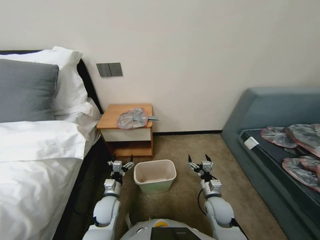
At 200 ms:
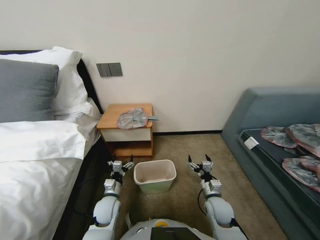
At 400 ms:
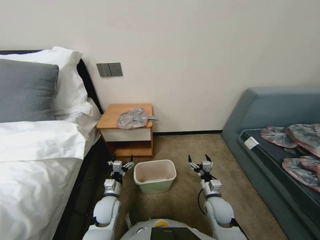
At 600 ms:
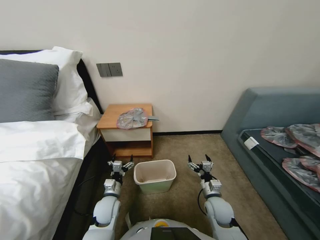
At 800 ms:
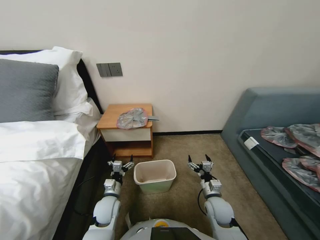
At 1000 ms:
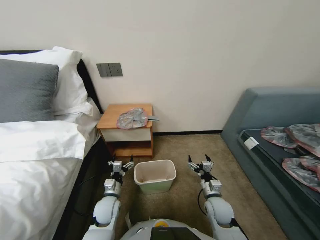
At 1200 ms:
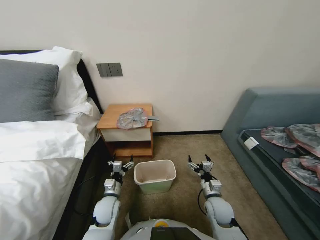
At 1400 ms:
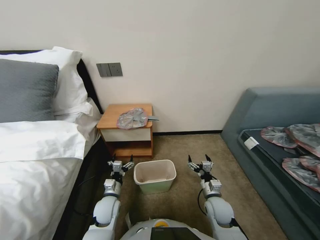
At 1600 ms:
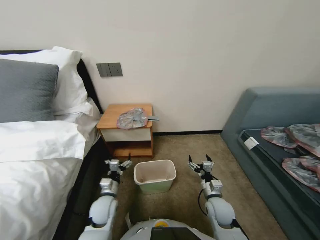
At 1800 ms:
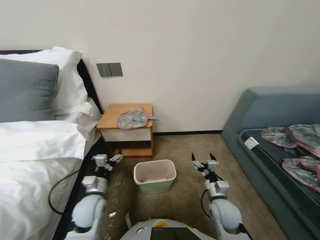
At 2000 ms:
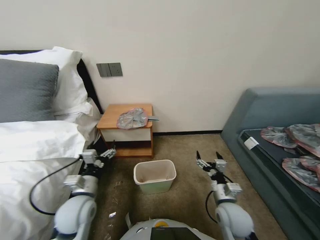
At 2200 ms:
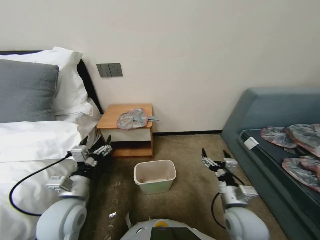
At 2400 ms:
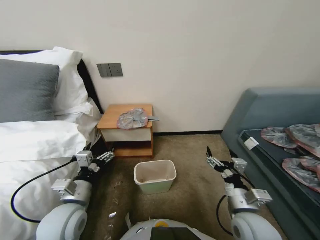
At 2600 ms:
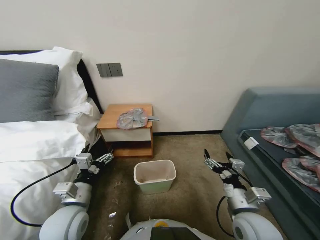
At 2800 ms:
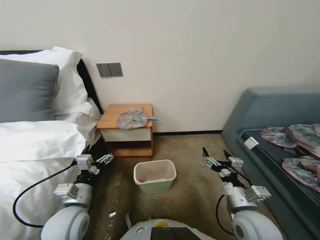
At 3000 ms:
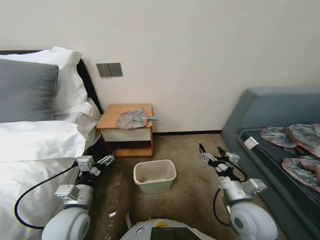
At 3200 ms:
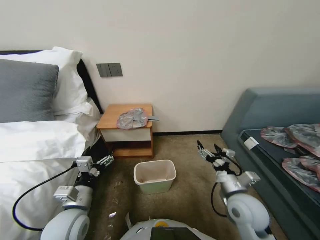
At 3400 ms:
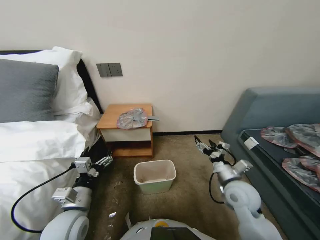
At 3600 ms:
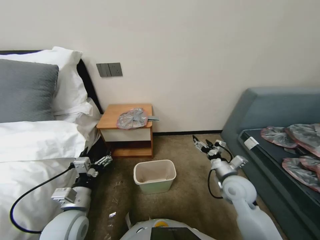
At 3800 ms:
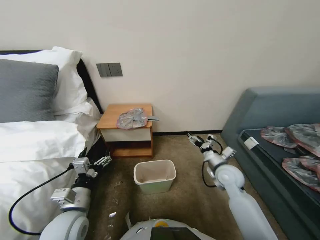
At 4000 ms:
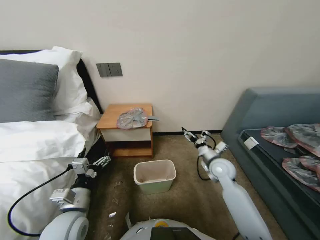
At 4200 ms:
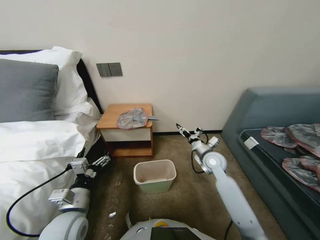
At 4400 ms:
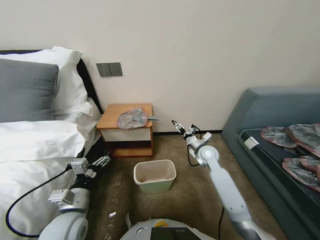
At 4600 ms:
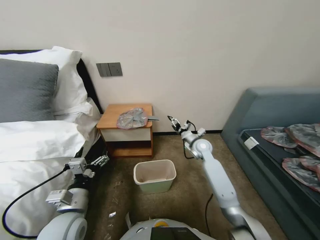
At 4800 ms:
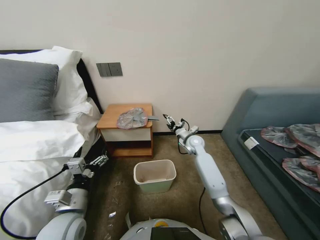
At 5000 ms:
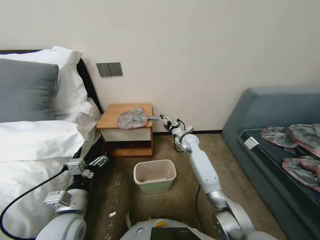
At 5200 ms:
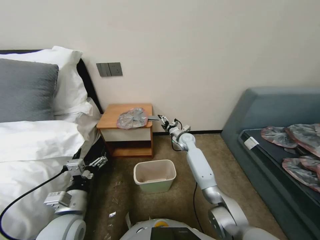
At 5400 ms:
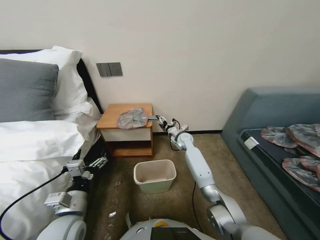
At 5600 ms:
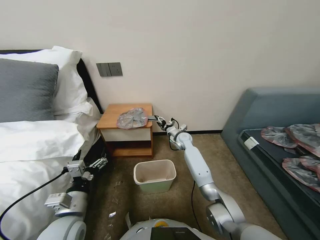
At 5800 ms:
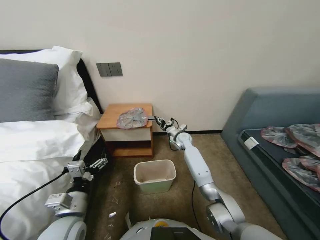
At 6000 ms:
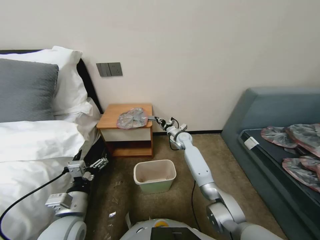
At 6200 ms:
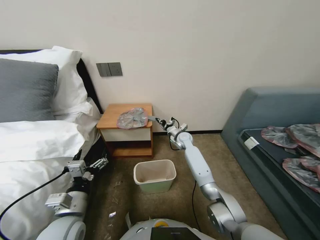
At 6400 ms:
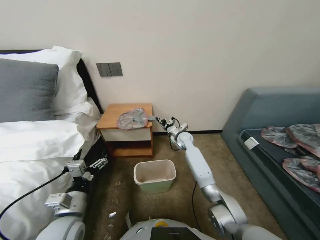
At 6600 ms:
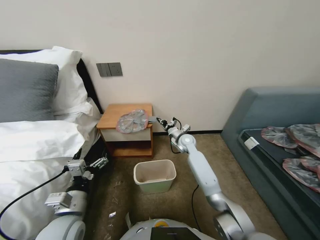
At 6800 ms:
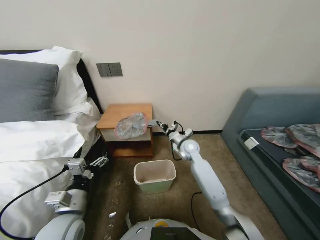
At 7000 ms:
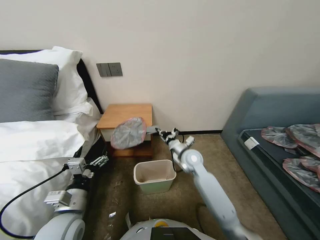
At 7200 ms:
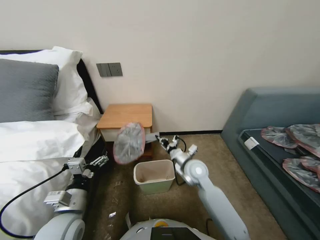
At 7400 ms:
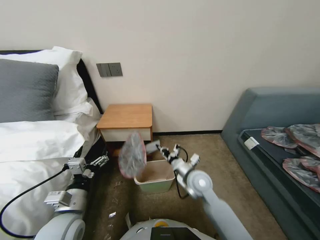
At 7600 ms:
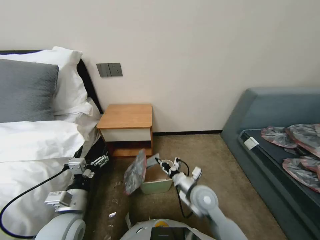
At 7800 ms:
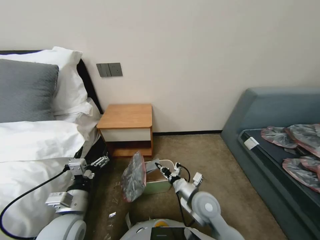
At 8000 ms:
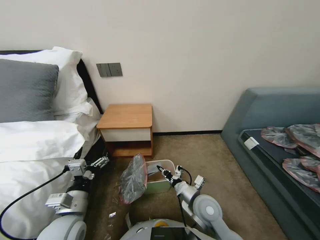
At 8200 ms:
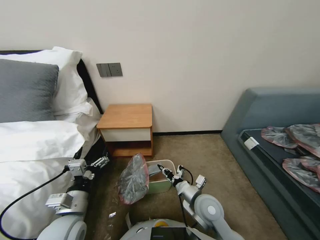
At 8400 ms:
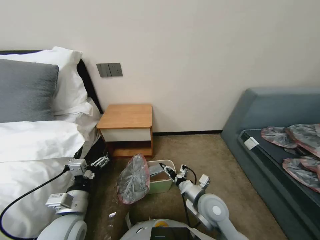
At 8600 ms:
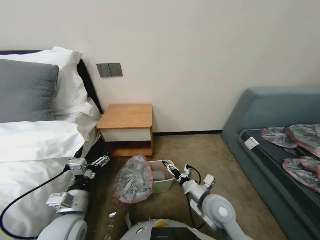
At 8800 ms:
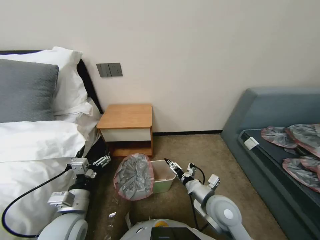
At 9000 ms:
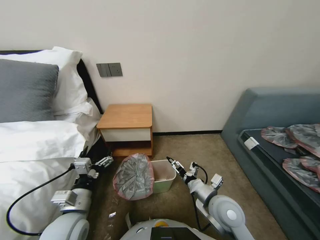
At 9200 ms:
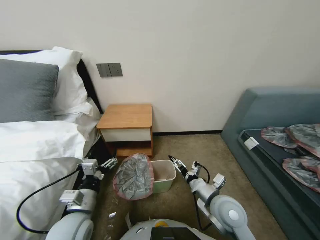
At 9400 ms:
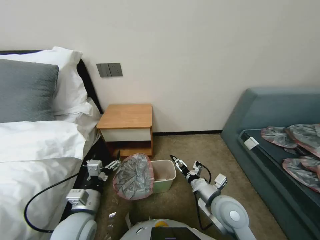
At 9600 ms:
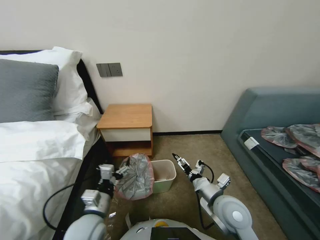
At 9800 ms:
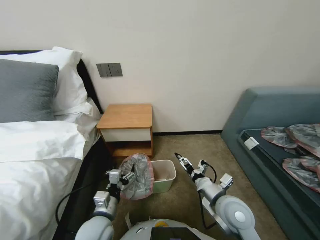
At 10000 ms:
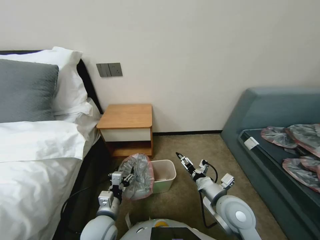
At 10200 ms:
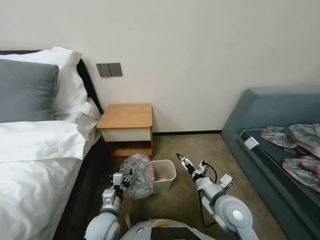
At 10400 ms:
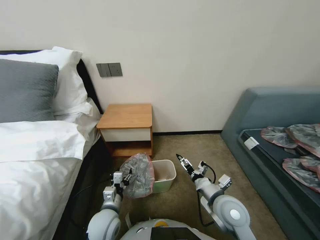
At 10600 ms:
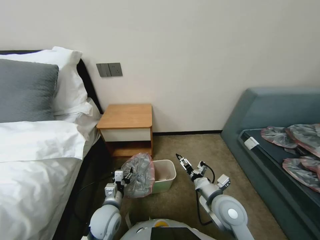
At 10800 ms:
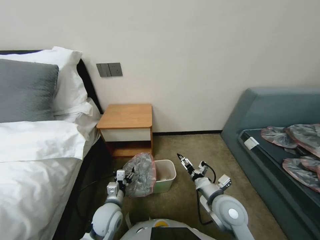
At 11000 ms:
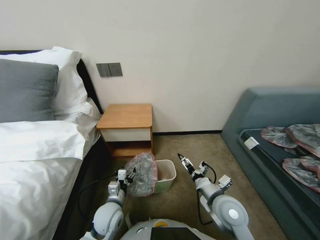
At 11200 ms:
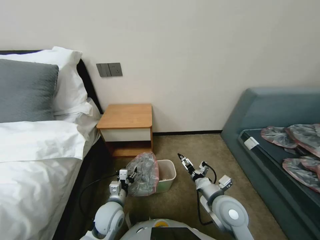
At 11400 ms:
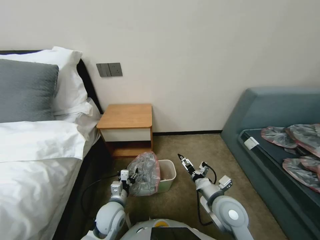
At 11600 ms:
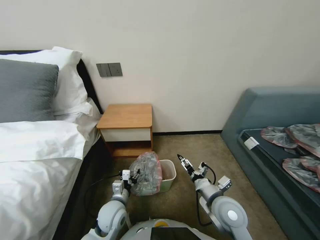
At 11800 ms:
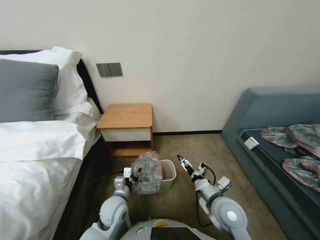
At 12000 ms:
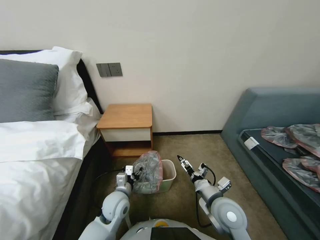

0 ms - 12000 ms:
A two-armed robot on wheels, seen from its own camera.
Task of the whole recording: Pick up the garbage bag from the table and place it over the trash can.
1600 ms - 3000 ms: Both grippers move upward and backward, about 15 cm.
3000 ms - 4400 ms: The right gripper shifts approximately 25 cm forward.
4400 ms - 6000 ms: The right gripper travels forward and to the left by some 15 cm, and closes up.
6000 ms - 7600 ms: The right gripper is displaced backward by roughly 30 cm.
7600 ms - 9000 ms: The right gripper travels backward by approximately 5 cm, and opens its fingers.
9000 ms - 10400 ms: The left gripper moves downward and to the right, some 10 cm.
10400 ms - 12000 ms: The left gripper is displaced forward by approximately 5 cm.

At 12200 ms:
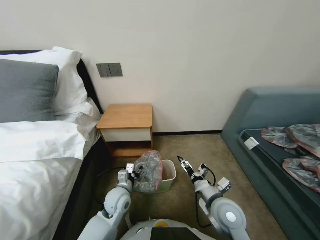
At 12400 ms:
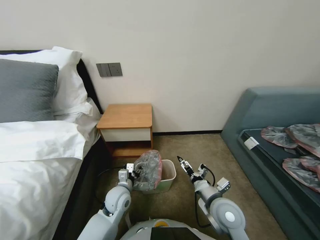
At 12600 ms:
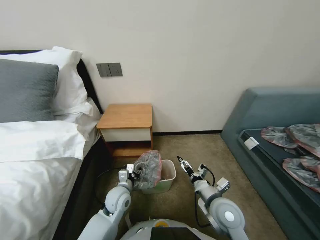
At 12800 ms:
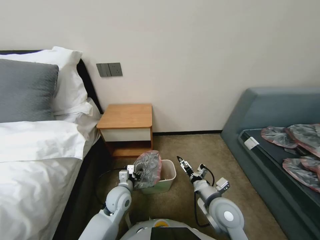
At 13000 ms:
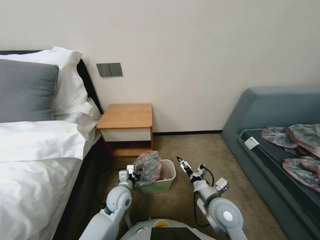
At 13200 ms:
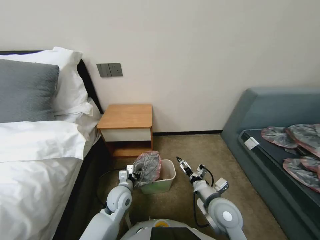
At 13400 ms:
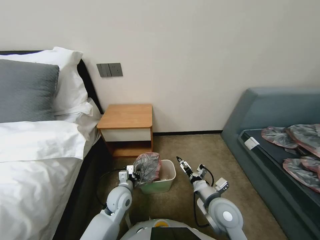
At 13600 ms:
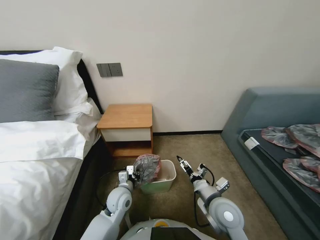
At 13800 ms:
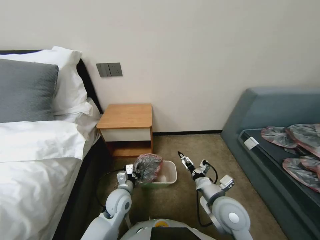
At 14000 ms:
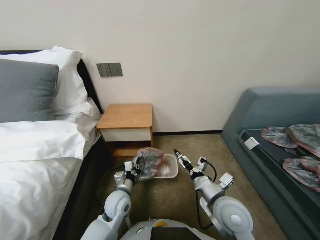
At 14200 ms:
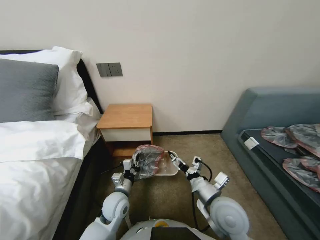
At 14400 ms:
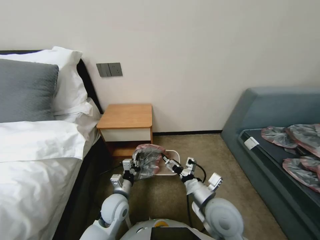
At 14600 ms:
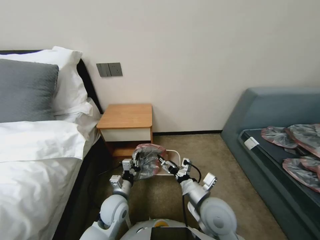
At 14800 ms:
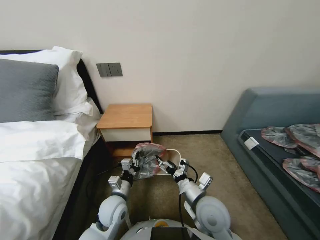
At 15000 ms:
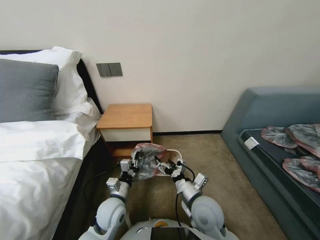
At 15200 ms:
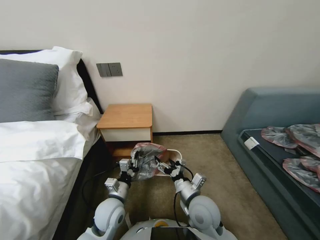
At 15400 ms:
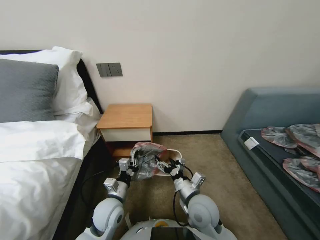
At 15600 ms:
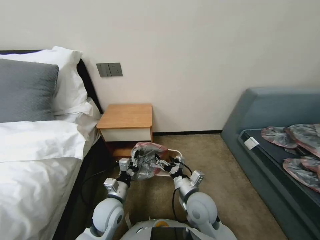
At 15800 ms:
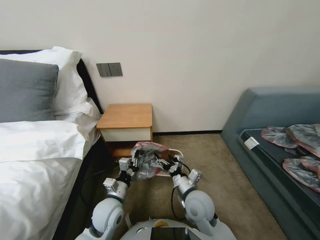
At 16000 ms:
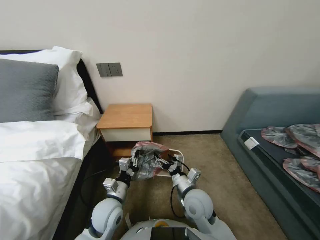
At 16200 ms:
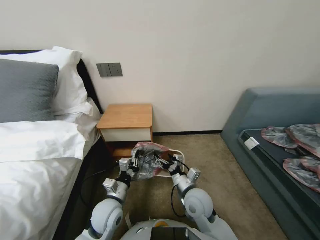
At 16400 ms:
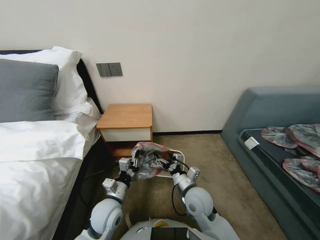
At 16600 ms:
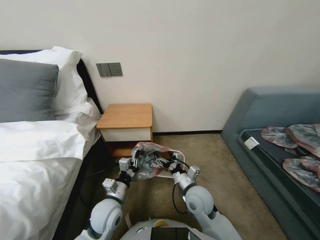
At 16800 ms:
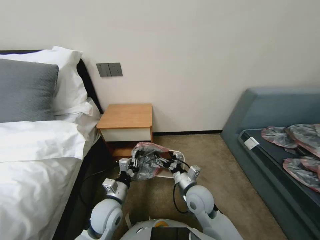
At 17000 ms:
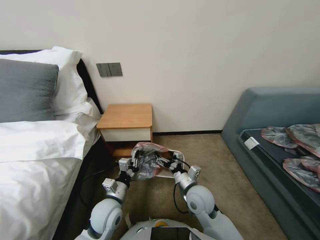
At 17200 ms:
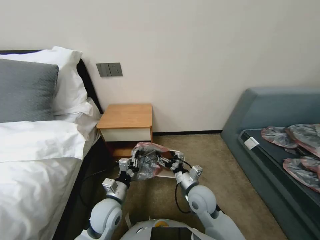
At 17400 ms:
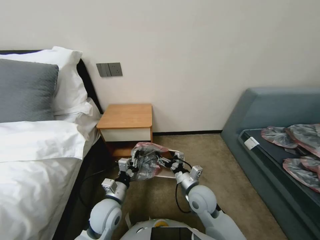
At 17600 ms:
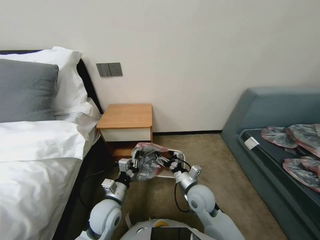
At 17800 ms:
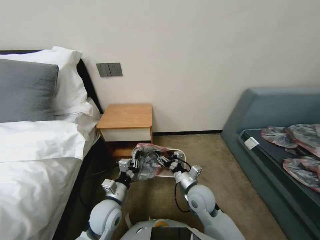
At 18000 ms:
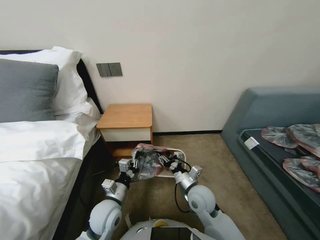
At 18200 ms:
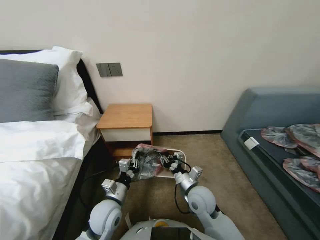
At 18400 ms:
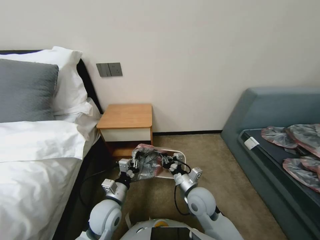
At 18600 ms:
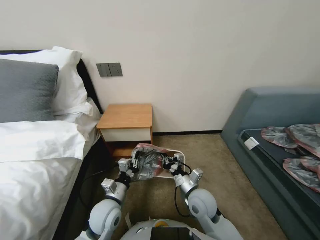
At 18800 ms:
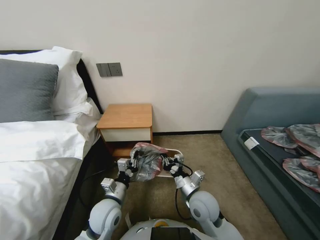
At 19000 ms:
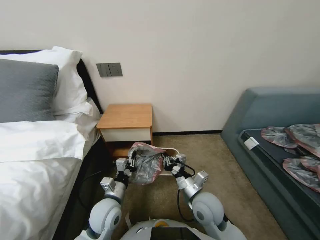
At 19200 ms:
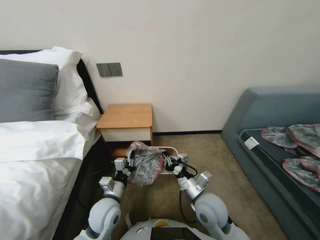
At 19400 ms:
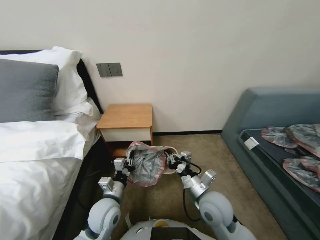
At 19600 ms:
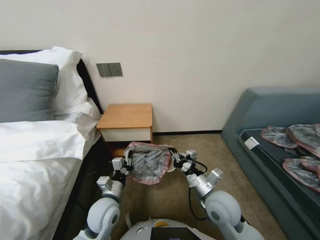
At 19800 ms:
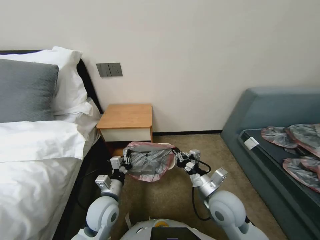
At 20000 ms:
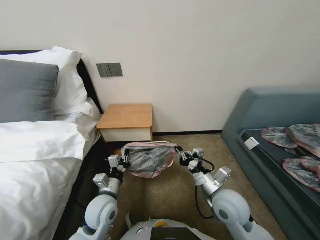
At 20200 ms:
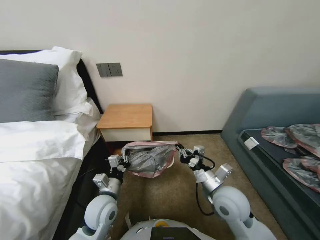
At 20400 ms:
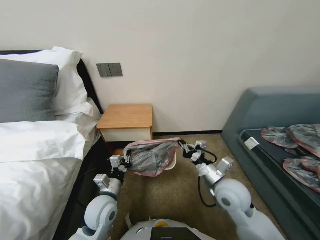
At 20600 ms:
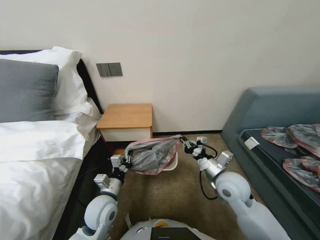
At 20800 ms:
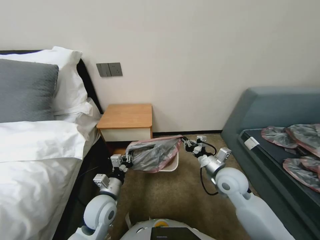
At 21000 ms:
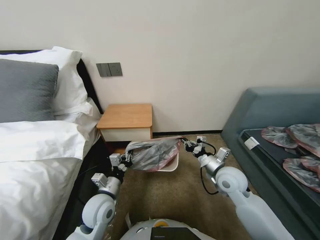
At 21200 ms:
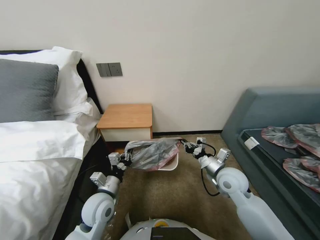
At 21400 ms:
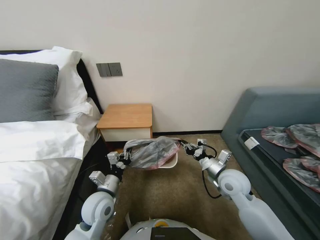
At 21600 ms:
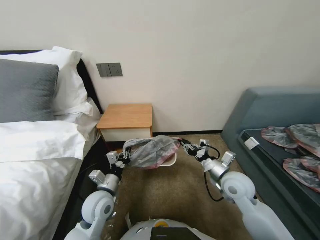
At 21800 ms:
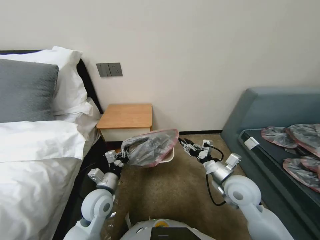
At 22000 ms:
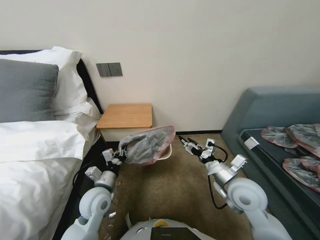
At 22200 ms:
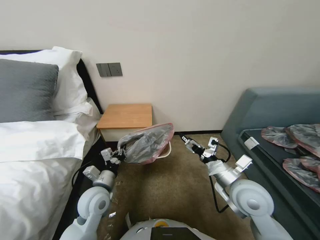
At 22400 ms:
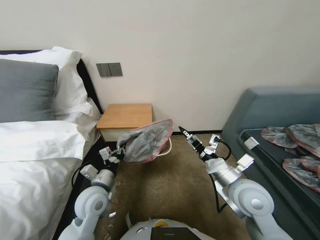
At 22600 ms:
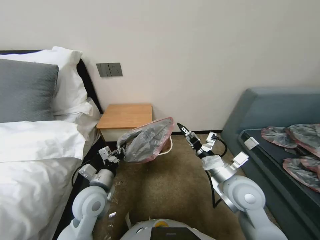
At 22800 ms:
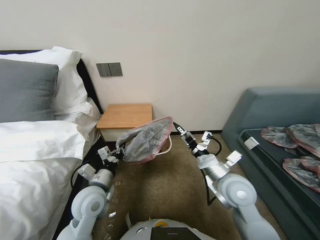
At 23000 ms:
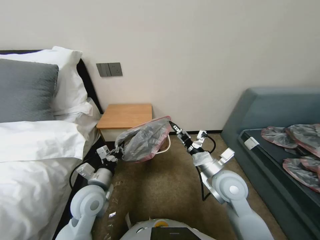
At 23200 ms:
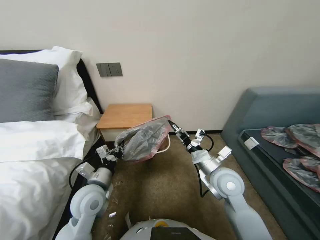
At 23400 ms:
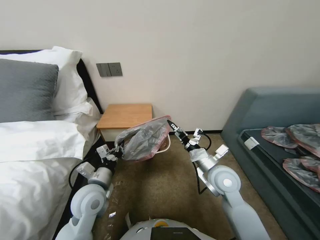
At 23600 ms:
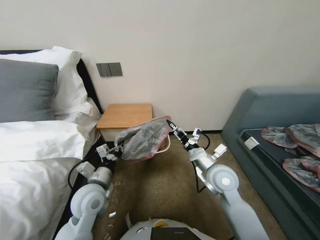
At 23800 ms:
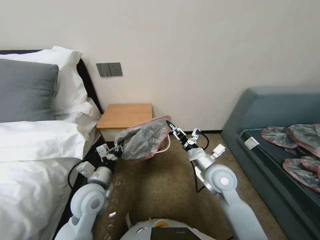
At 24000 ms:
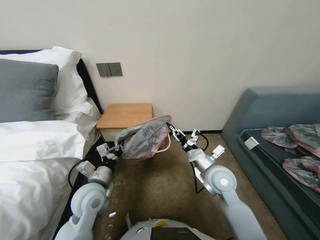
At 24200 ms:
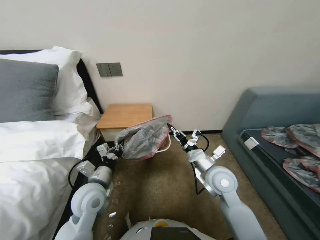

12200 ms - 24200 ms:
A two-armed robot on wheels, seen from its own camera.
Task of the whole recording: Pick up the garbage bag from the table and place it over the trash can.
12200 ms - 13800 ms: The left gripper closes.
13800 ms - 15200 ms: The left gripper moves about 5 cm. Meanwhile the right gripper heads to the left, covering some 5 cm.
15200 ms - 16600 ms: The grippers make only small movements.
16600 ms - 18200 ms: The right gripper closes up.
18200 ms - 19800 ms: The right gripper heads upward, covering about 5 cm, and closes up.
19800 ms - 21200 ms: The right gripper travels forward and to the right by roughly 10 cm.
21200 ms - 22600 ms: The right gripper is displaced backward and upward by about 10 cm, and opens its fingers.
22600 ms - 24200 ms: The right gripper is displaced forward by some 5 cm, and closes.
